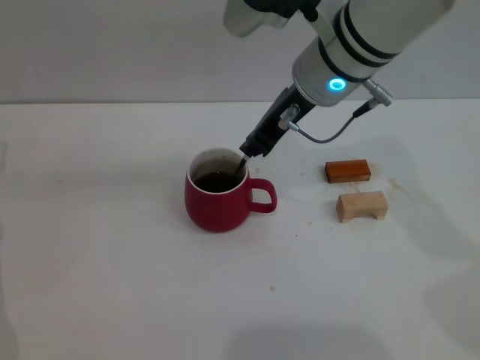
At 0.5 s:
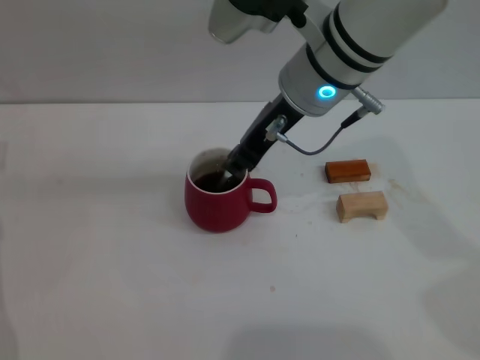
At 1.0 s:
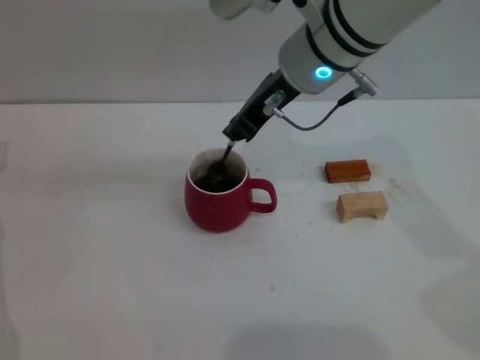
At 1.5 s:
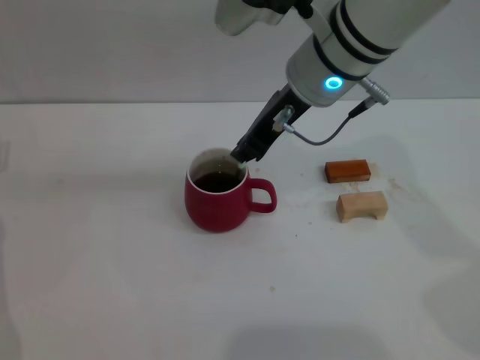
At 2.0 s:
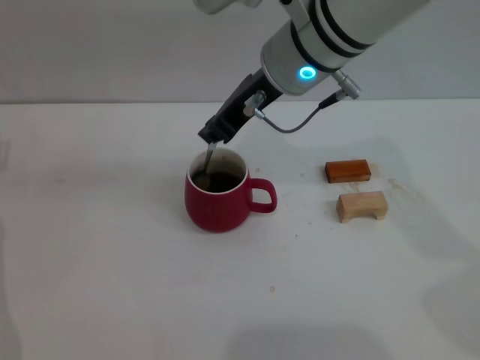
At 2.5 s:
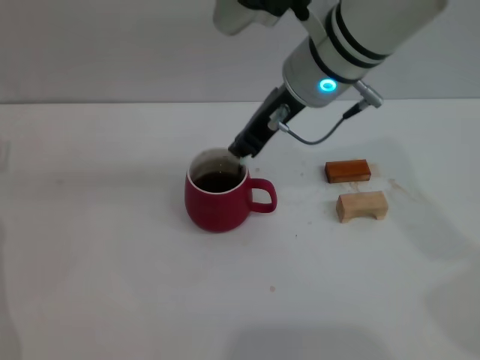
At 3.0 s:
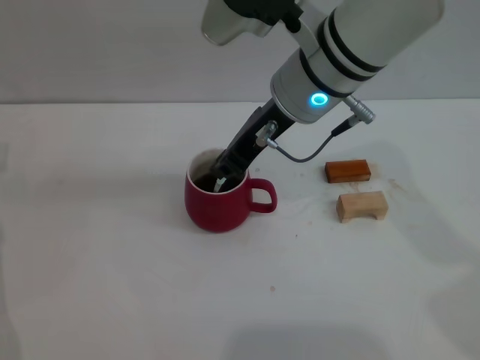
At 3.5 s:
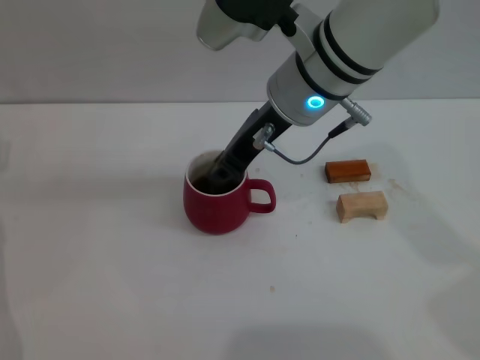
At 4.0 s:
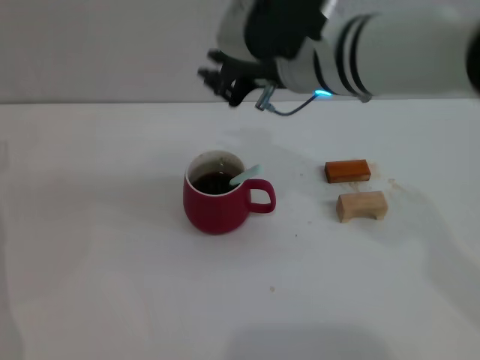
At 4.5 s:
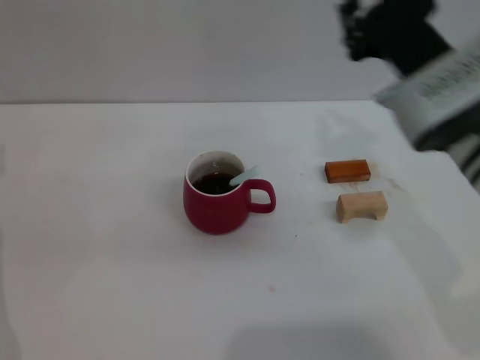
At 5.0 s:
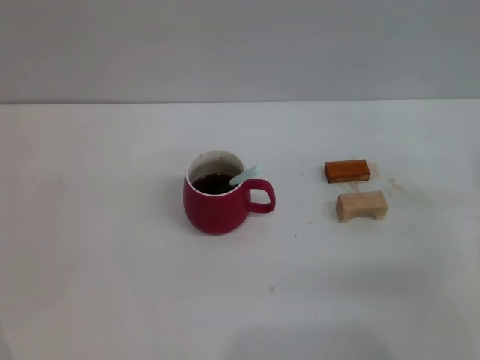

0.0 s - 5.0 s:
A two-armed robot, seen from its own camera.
Task of the whole recording: Move the red cup to the center, lift the blue spoon, stir it three times in the cup, and put the spoon into the cup.
Step, 0.0 s - 3.5 s: Stir the coffee with right gripper.
0.0 s - 2.5 s: The grippers stay close to where they were, moving slightly.
2.5 s - 5.0 s: The right gripper shifts some 30 cm to the right, backward and downward.

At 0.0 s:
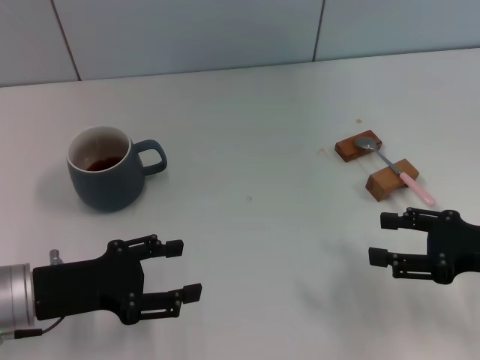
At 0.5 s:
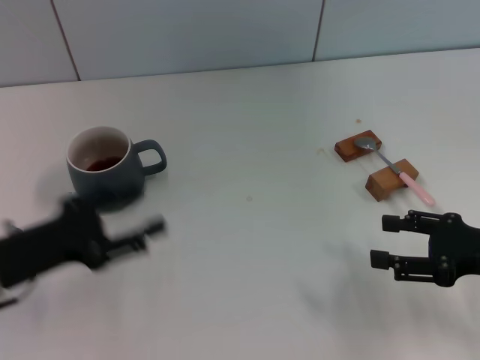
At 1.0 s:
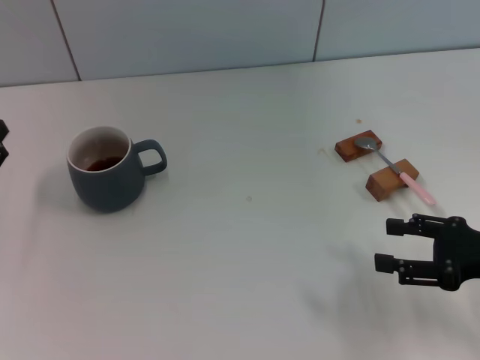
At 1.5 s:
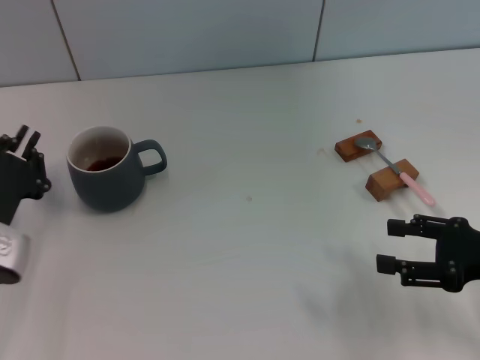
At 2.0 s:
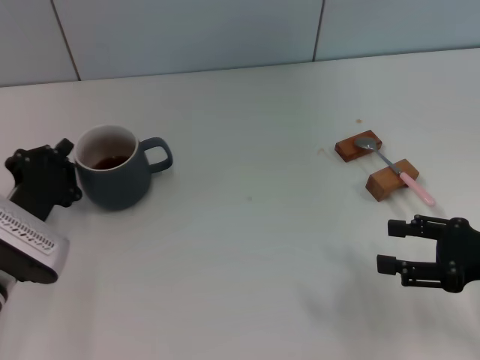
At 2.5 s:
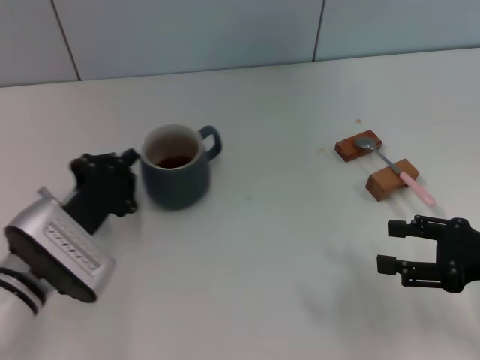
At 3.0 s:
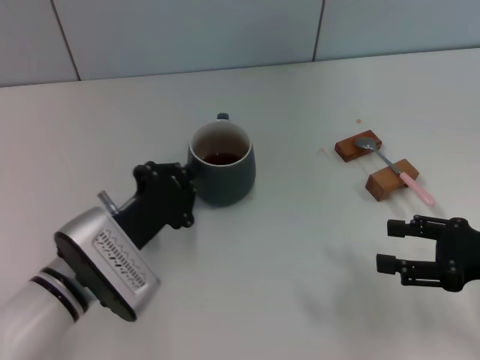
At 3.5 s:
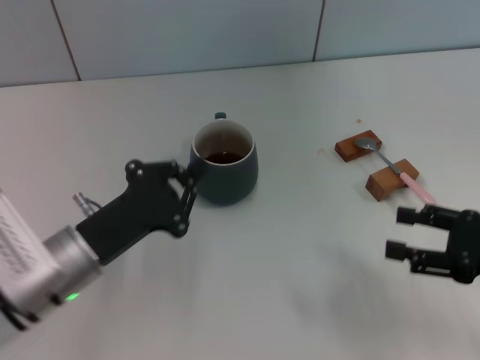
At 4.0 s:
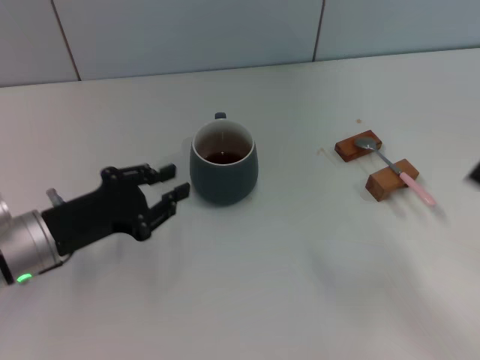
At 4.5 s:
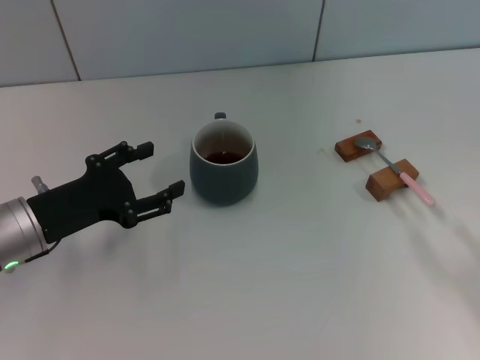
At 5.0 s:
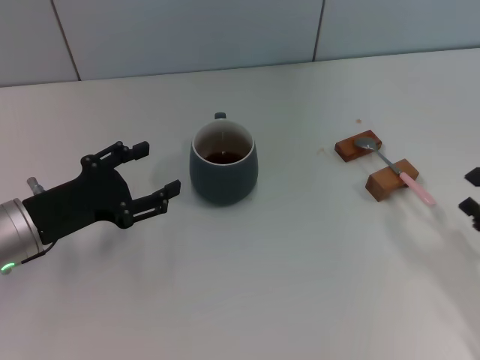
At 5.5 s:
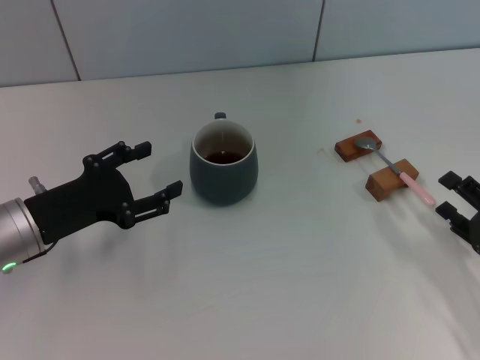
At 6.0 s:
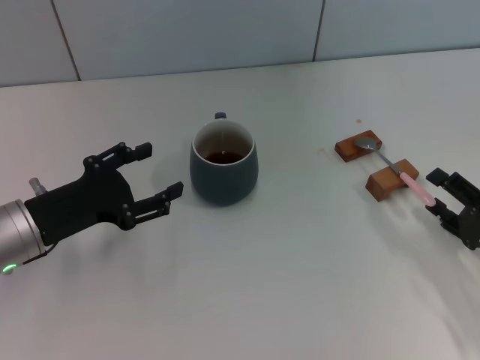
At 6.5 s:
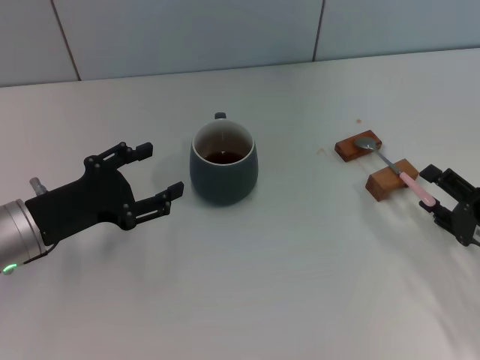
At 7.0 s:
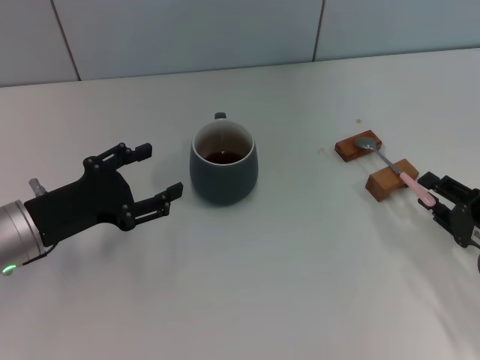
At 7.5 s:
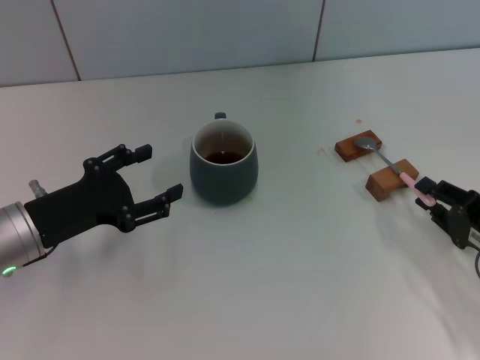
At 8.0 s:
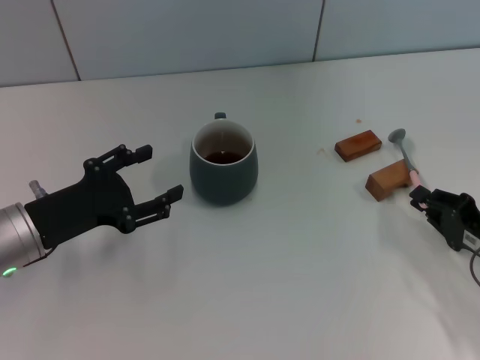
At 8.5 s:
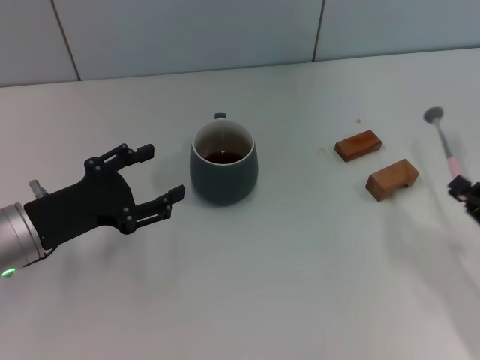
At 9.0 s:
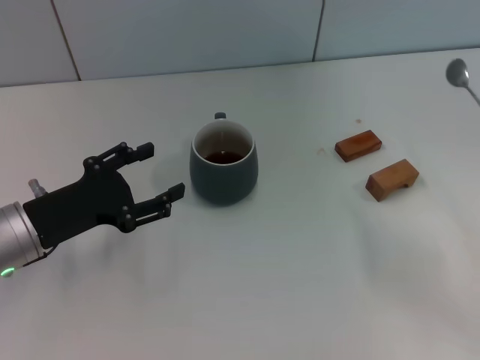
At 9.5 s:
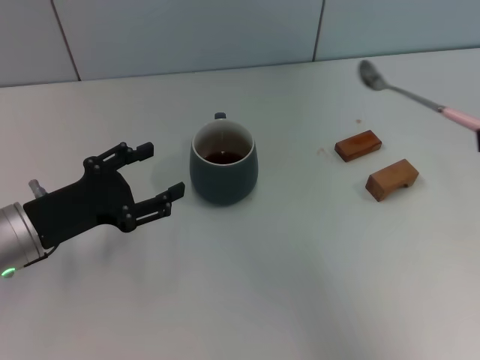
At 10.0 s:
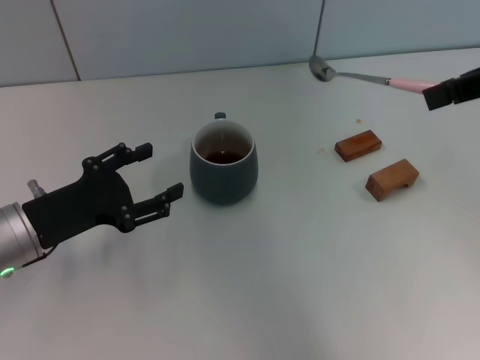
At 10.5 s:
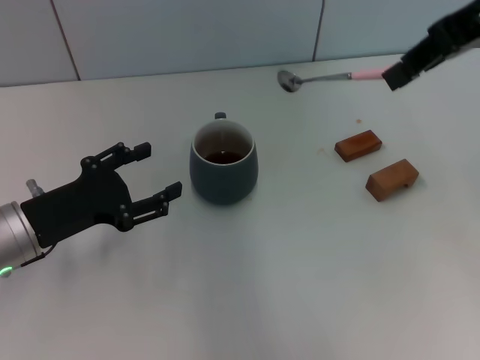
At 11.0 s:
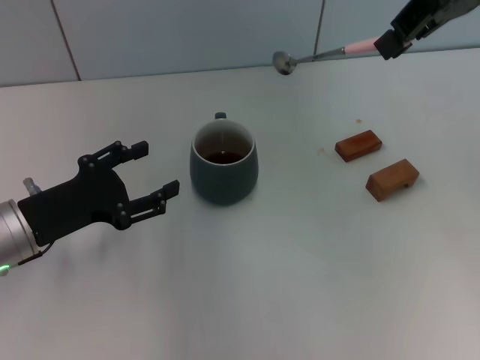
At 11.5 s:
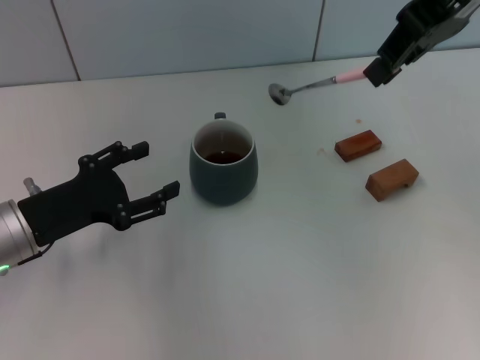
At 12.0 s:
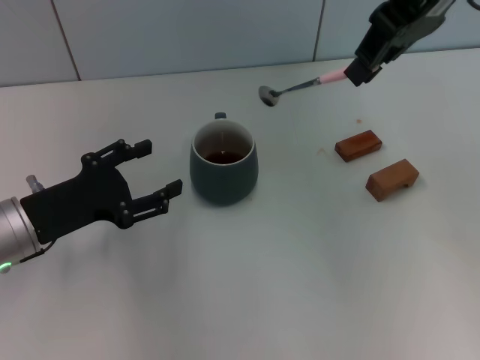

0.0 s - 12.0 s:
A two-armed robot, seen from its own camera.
Task of the whole recording: Move the grey cup to the center, lift the pink spoon, stir it three times in the cup, and put the spoon into the cup.
Step, 0.0 s - 3.5 s: Move the cup with coffee to the center of view with the left gripper.
Step, 4.0 s - 8.5 s: Pick up the spoon with the right gripper.
0.0 s - 2.0 s: The left gripper goes to the left and returns, about 10 cm each way, and closes its fingers.
2.0 s - 4.0 s: The right gripper travels backward by roughly 5 cm. Meanwhile the left gripper goes to the right and returns, roughly 10 cm each way.
4.0 s - 6.0 s: The left gripper opens up, while the right gripper travels downward by about 5 cm.
6.0 s - 8.0 s: The right gripper closes its fingers.
8.0 s - 10.0 s: The right gripper travels upward by some 30 cm.
10.0 s - 12.0 s: The right gripper is displaced forward and to the left by about 15 cm.

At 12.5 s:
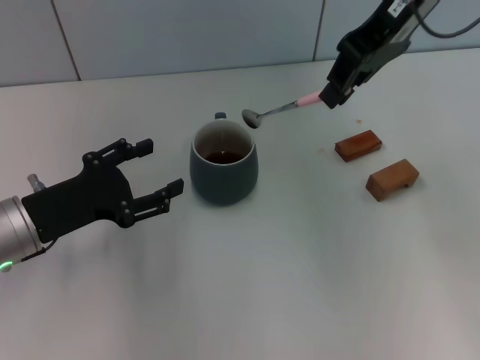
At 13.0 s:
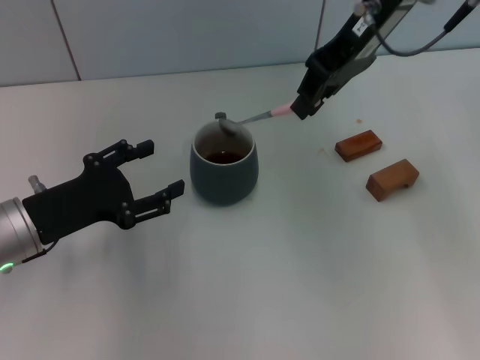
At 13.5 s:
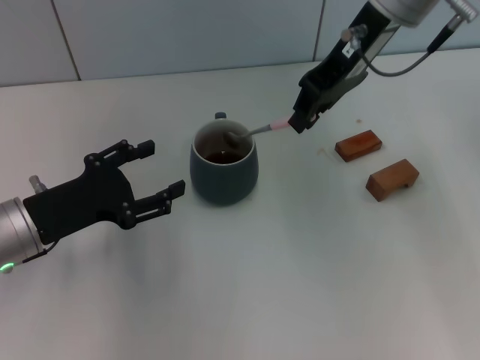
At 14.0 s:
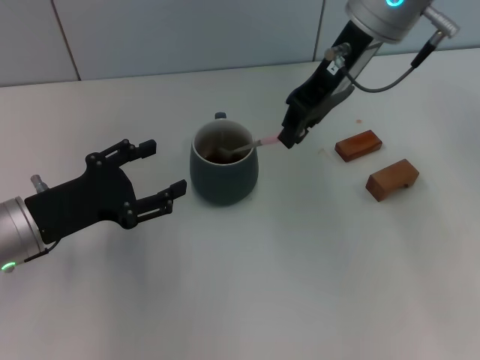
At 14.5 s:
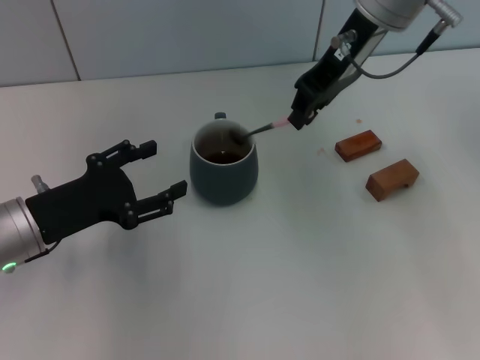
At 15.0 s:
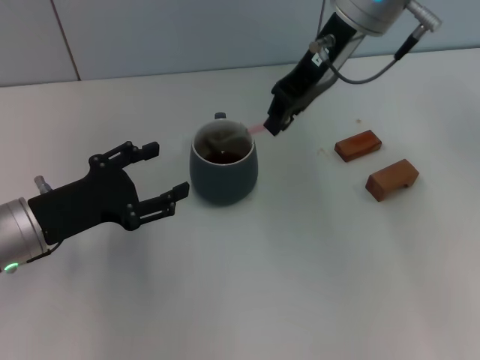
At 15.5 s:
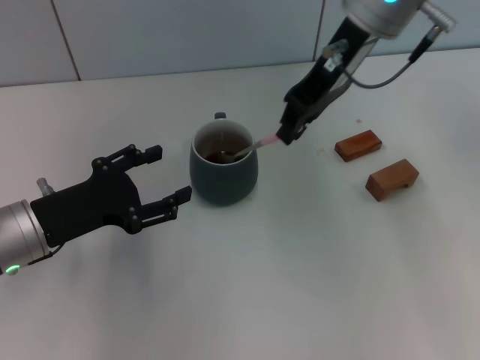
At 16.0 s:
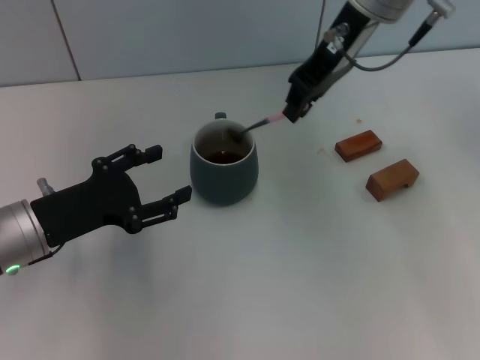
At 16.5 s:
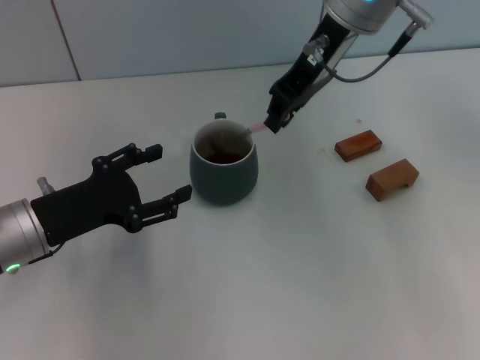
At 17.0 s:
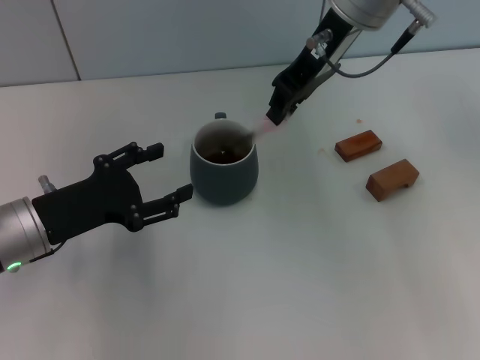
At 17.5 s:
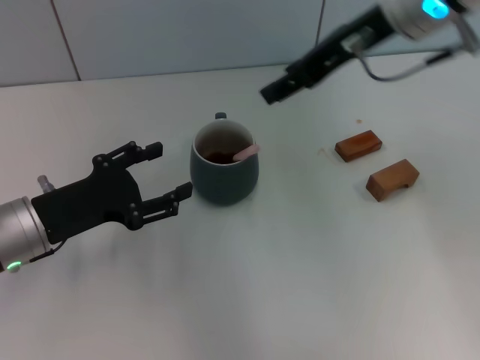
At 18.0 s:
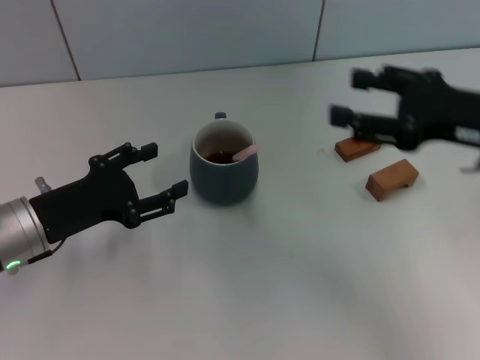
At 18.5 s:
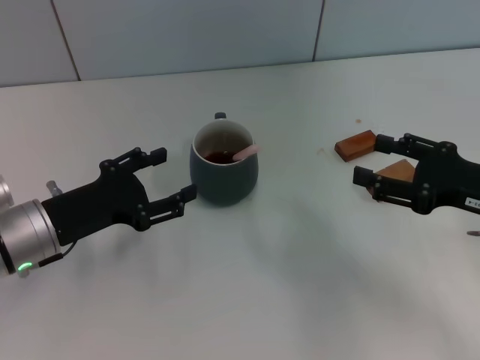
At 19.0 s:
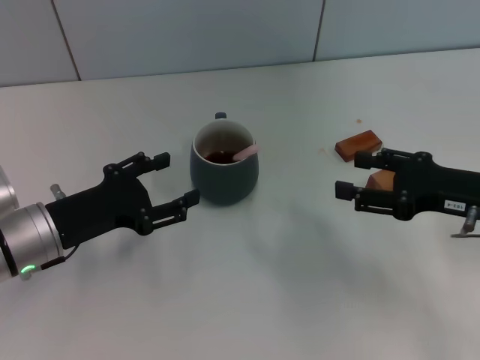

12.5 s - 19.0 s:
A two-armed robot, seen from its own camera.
Task of the whole recording: Move the grey cup to the center, lift the pink spoon, stir it three times in the cup, and put the spoon into the cup.
Step, 12.5 s - 17.0 s: Stir the coffee in the cup with the right gripper.
12.5 s - 14.5 s: The right gripper travels downward by roughly 5 cm.
14.5 s - 17.0 s: The grippers move only a little.
17.0 s - 19.0 s: The right gripper shifts some 30 cm to the right, downward and backward, and opens its fingers.
